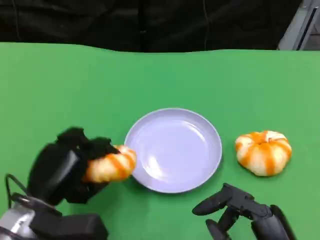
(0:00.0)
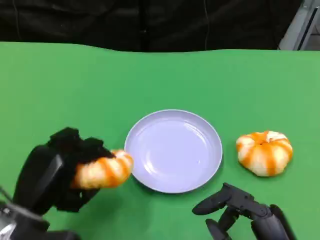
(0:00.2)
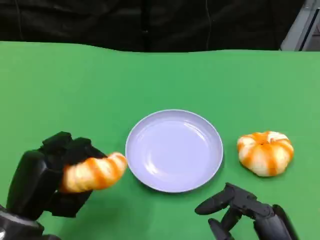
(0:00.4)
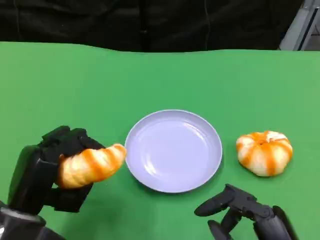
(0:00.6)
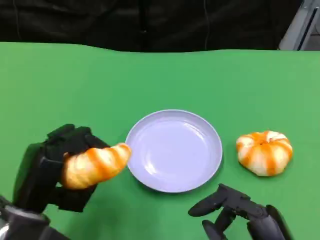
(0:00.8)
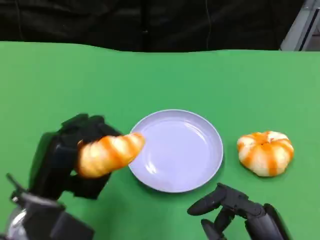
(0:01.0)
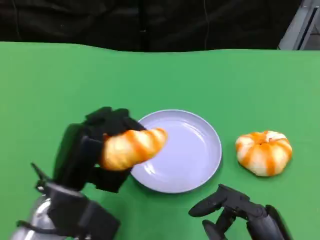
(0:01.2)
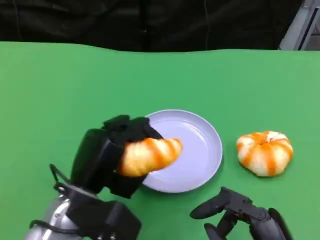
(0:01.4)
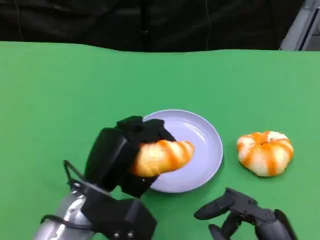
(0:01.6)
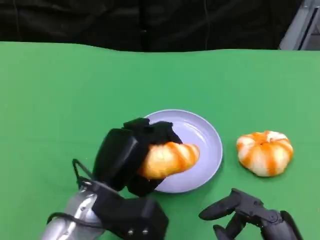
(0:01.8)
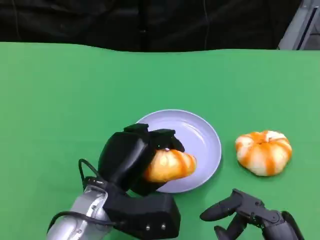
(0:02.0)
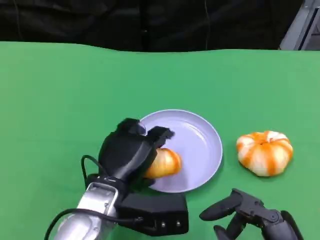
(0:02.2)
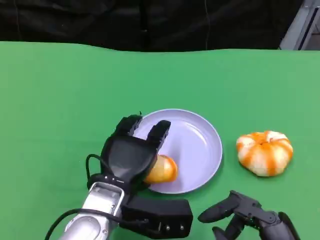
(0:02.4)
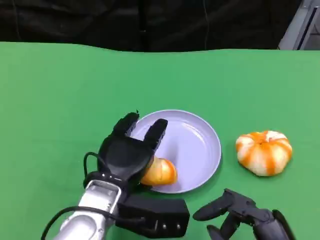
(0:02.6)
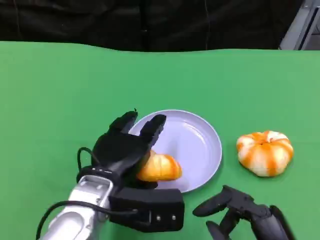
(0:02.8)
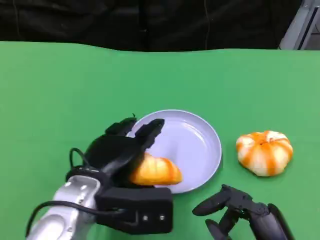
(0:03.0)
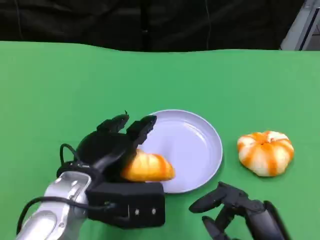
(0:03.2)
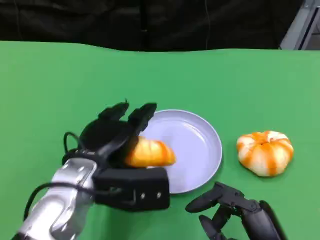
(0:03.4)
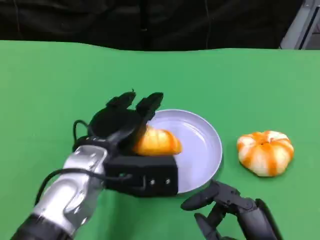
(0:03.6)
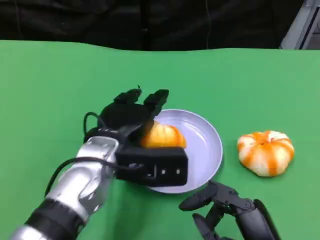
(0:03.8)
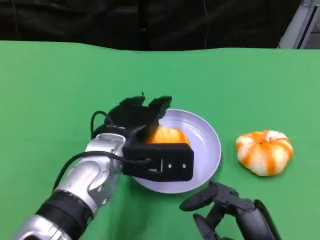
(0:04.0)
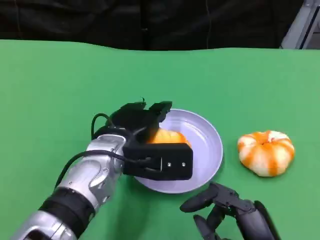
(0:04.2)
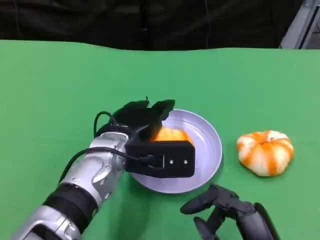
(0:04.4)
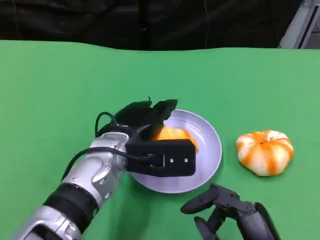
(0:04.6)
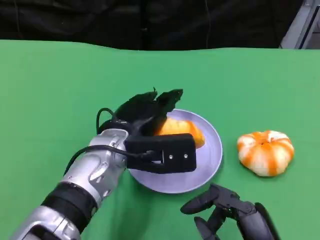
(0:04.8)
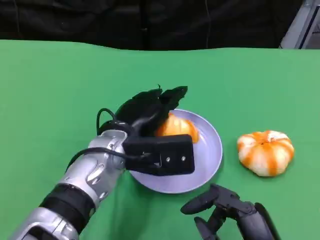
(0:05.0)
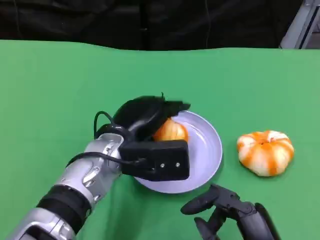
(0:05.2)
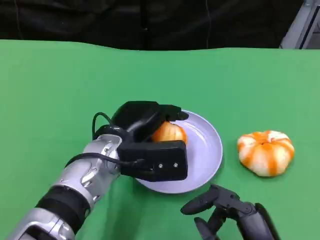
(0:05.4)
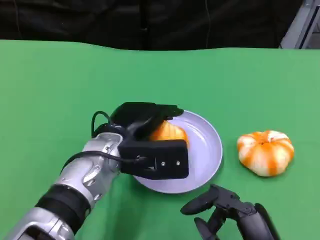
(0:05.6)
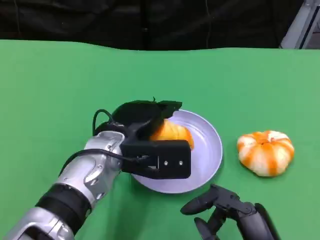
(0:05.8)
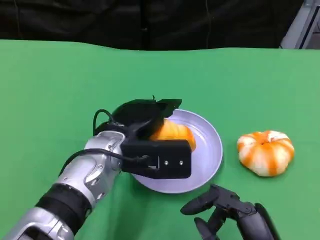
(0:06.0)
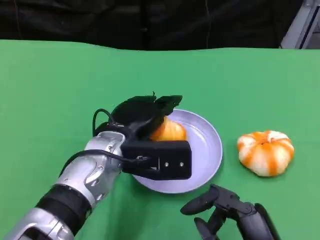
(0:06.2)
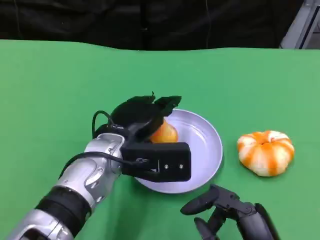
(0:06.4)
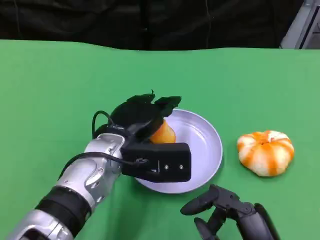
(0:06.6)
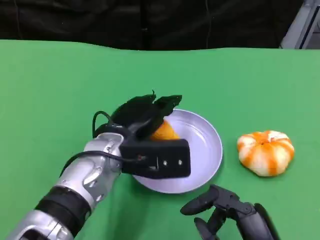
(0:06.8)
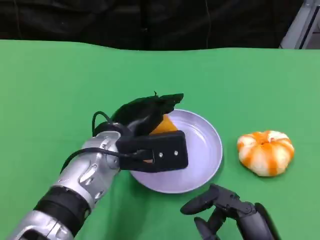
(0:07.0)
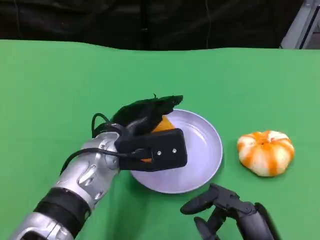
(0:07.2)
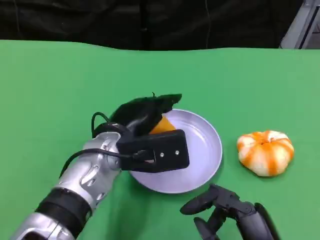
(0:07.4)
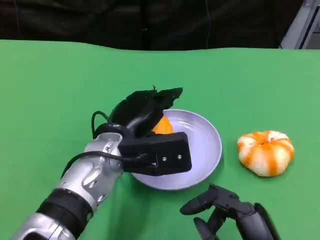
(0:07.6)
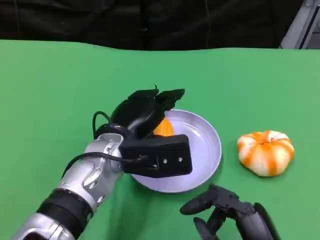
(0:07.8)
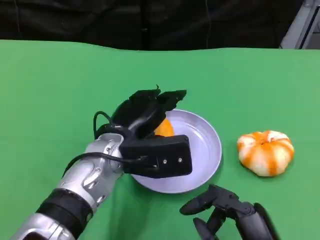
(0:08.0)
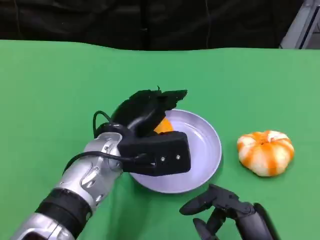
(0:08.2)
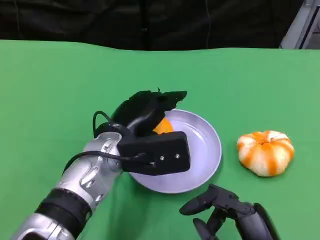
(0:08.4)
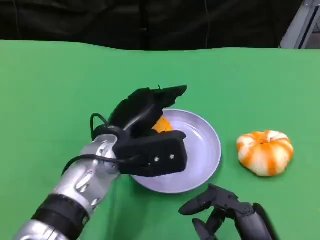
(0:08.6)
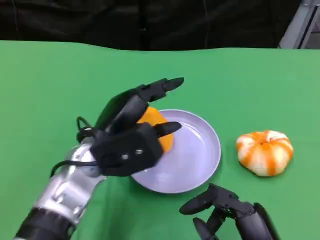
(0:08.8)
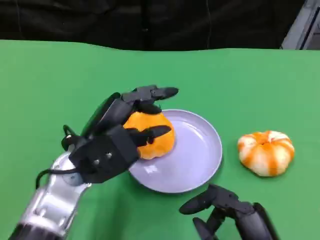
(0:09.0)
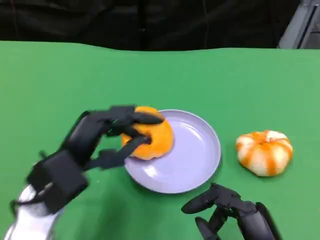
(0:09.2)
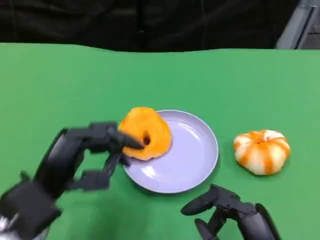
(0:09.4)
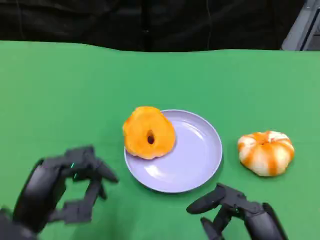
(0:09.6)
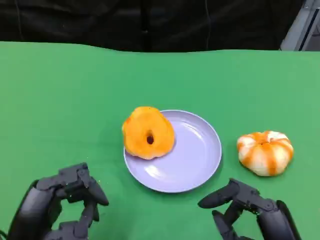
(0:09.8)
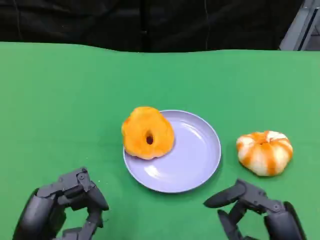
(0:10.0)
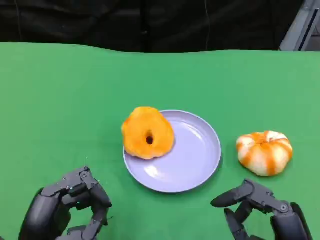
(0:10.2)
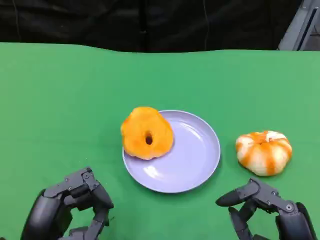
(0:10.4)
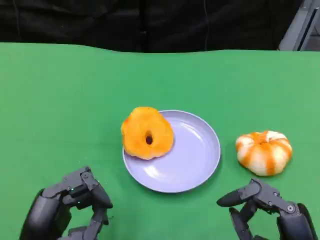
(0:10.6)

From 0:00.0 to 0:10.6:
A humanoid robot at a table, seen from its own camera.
Task of the whole recording: Grasp the bread from the table and place it into the plate.
From 0:00.0 to 0:01.6: The left hand moves to the right, approximately 10 cm.
From 0:03.0 to 0:04.6: The left hand moves forward, about 5 cm.
From 0:04.6 to 0:07.6: The hands move only a little.
From 0:07.6 to 0:09.0: The left hand heads to the left, covering some 5 cm.
From 0:09.0 to 0:10.6: The left hand travels backward, to the left and downward by approximately 15 cm.

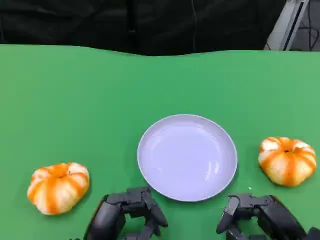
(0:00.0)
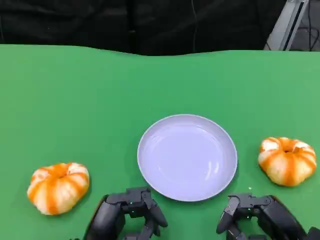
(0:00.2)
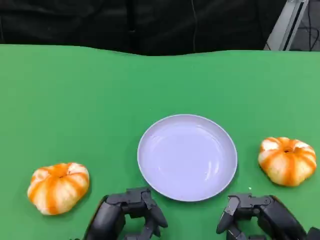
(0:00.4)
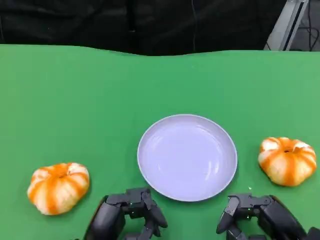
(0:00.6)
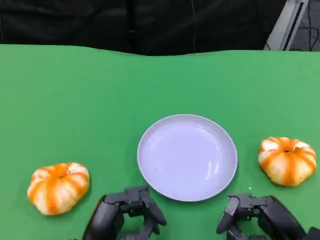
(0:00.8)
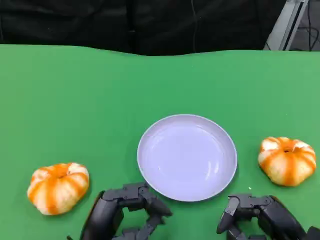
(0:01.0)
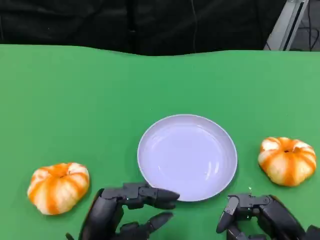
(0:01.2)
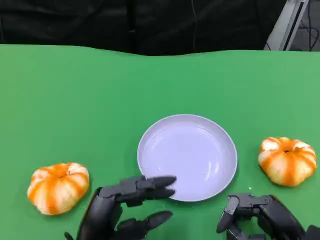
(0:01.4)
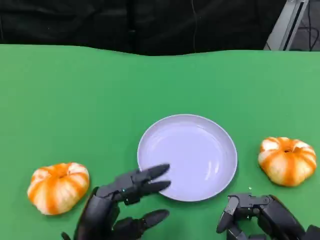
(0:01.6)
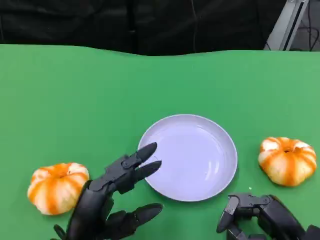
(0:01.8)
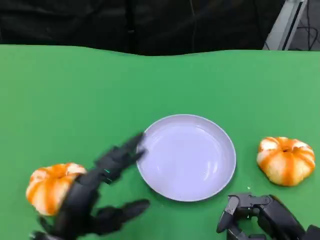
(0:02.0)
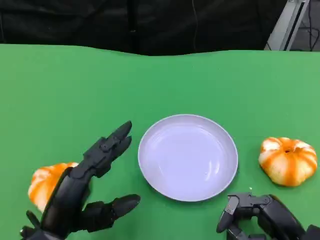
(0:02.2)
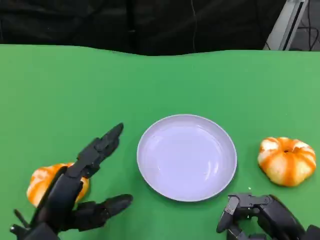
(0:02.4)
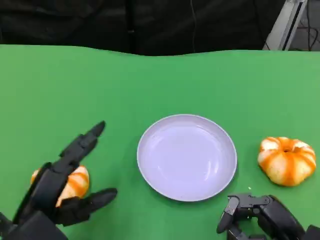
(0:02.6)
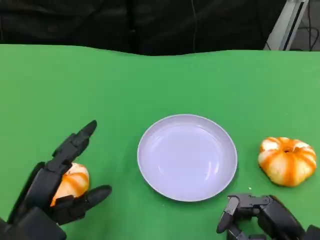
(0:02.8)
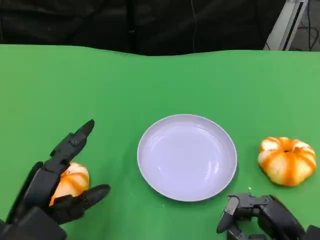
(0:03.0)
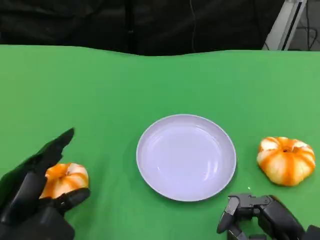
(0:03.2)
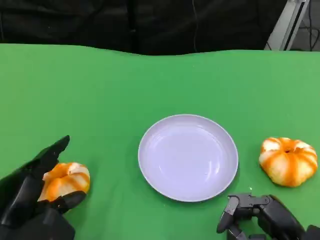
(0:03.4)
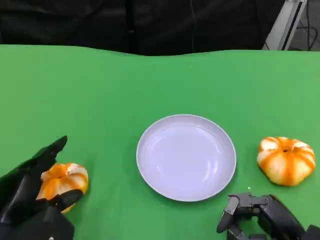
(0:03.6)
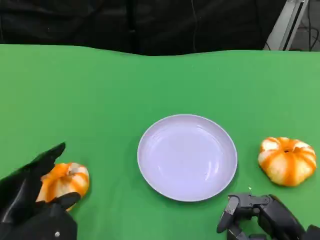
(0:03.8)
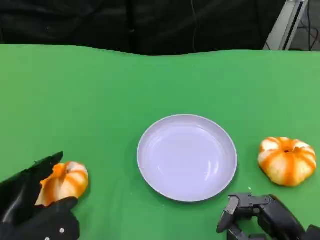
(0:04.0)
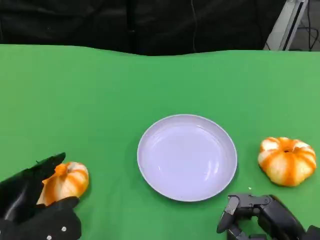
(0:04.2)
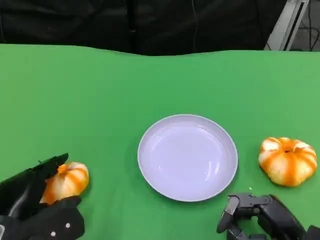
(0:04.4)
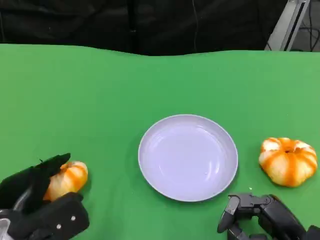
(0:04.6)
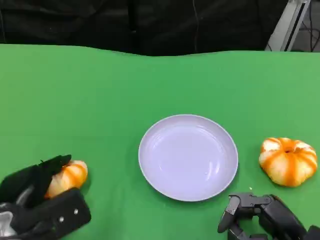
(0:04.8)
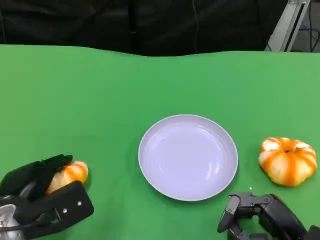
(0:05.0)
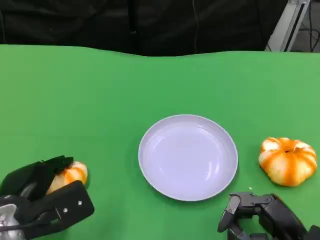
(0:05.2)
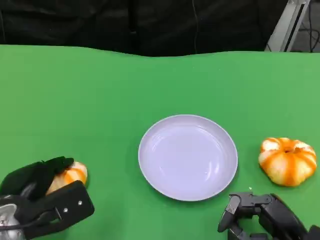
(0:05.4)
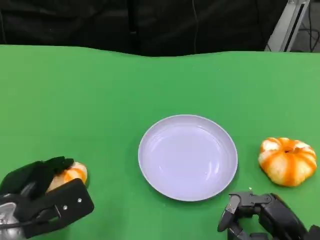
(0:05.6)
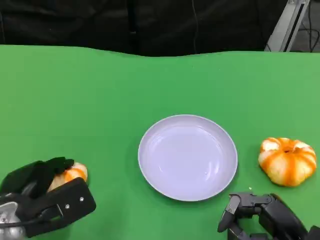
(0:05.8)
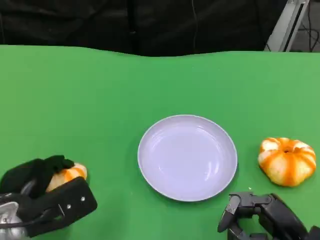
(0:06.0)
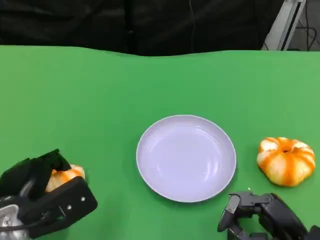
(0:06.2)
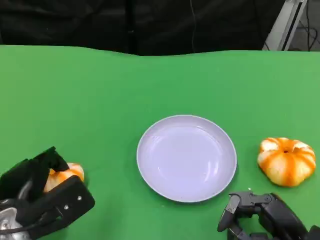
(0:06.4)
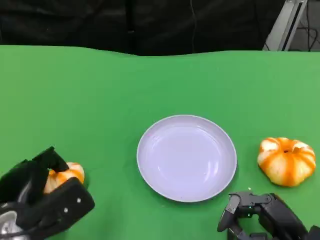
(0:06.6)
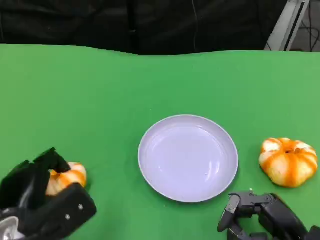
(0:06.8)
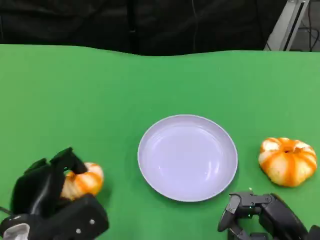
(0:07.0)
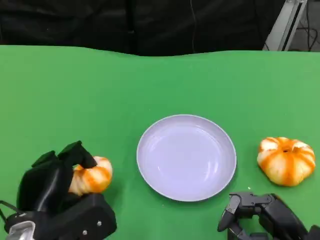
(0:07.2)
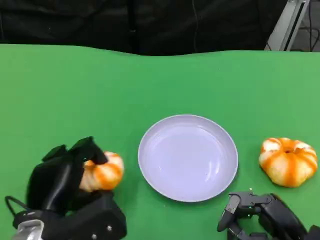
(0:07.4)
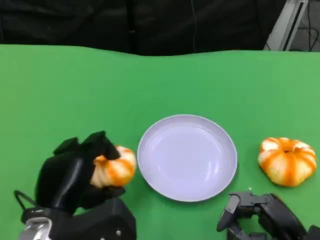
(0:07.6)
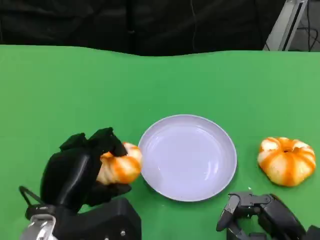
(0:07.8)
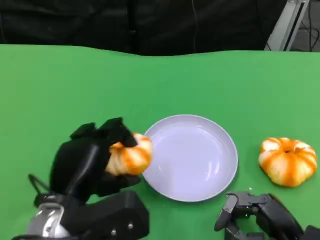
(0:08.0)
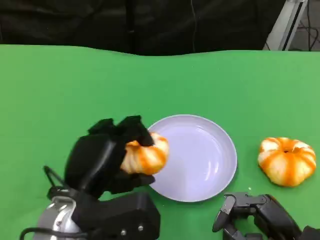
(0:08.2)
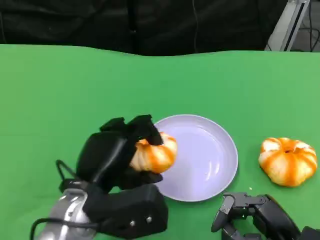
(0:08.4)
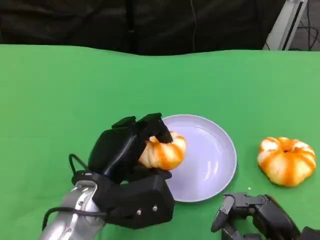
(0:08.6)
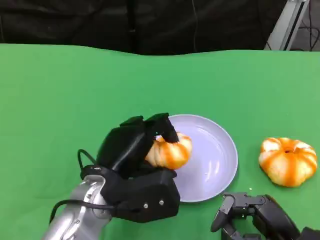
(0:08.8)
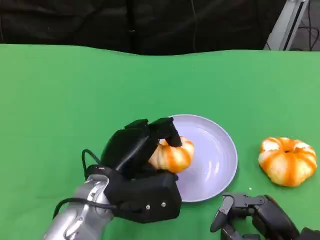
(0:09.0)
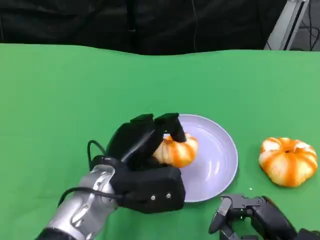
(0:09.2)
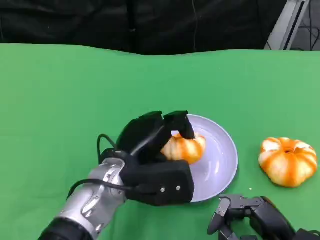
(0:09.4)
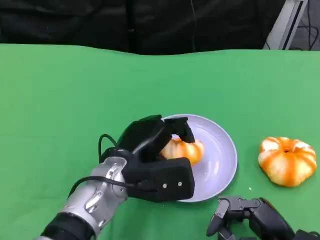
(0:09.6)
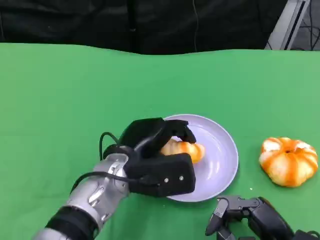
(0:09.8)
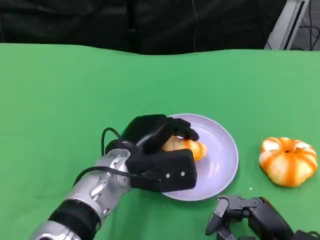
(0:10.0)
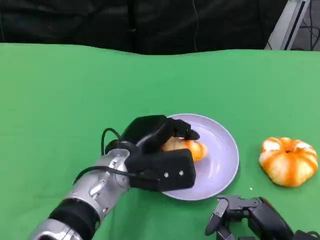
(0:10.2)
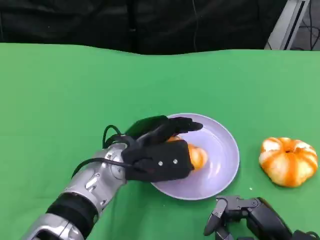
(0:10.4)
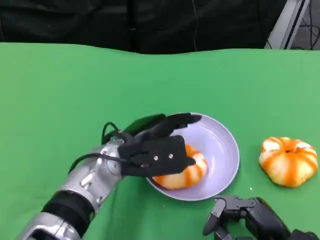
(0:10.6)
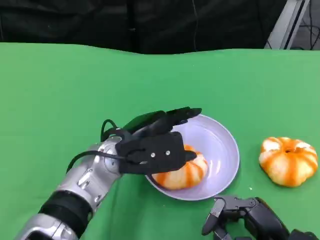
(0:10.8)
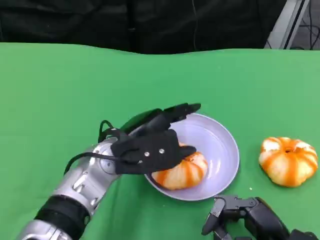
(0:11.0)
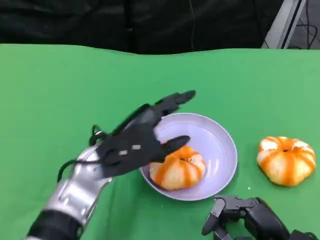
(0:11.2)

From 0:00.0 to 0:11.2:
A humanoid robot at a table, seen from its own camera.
Task of the whole recording: Grasp the bread from the table and place it into the plate.
From 0:00.0 to 0:01.6: The hands make only small movements.
From 0:01.6 to 0:03.2: The left hand moves to the left, some 10 cm.
From 0:04.8 to 0:06.4: There are only small adjustments of the hands.
From 0:06.4 to 0:08.0: The left hand goes about 10 cm to the right and upward.
From 0:08.0 to 0:09.6: The left hand is displaced to the right and forward by about 10 cm.

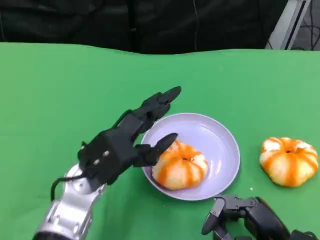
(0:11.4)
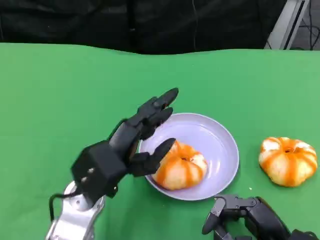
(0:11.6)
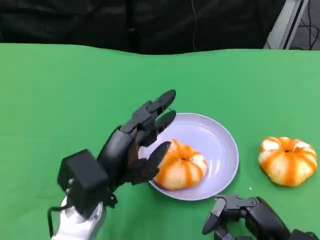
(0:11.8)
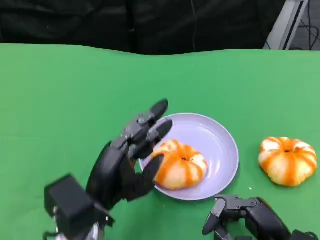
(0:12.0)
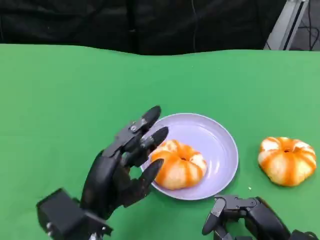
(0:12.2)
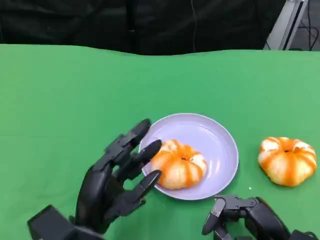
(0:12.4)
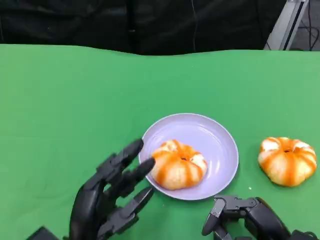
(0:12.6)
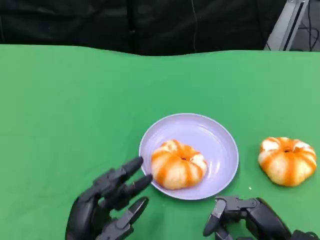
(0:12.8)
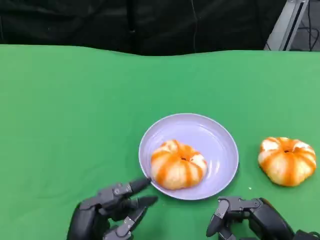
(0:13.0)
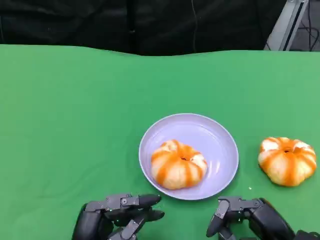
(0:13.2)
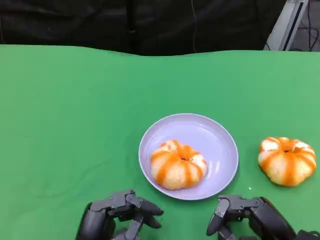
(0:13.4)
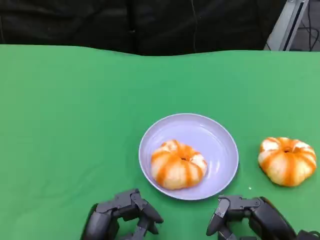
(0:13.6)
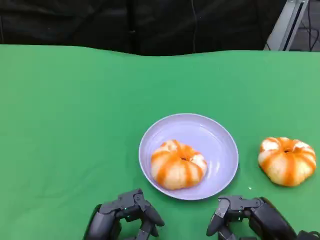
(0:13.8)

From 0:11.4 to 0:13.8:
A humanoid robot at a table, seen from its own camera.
Task of the whole recording: Grasp the bread from the table and place it into the plate.
From 0:11.4 to 0:12.6: The left hand goes roughly 10 cm backward and downward.
From 0:12.6 to 0:13.8: The hands stay close to where they were, moving slightly.